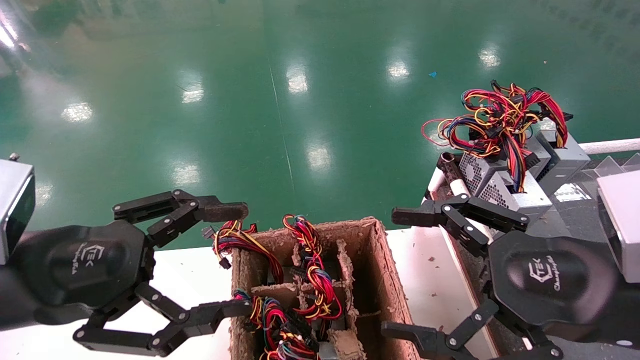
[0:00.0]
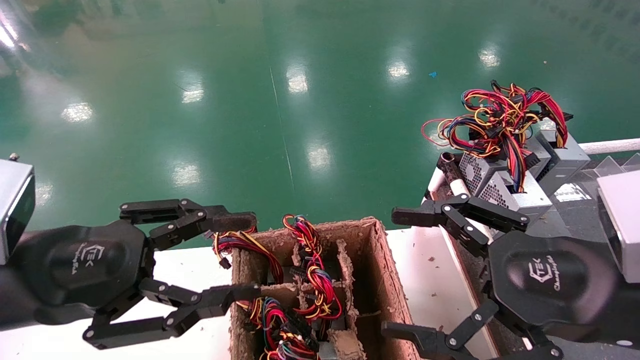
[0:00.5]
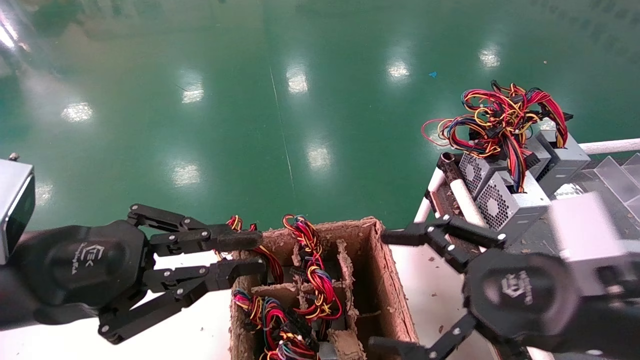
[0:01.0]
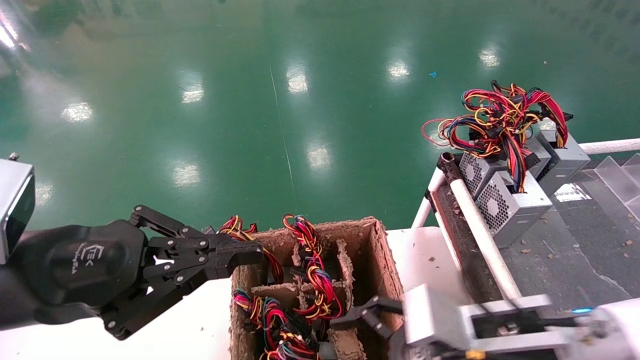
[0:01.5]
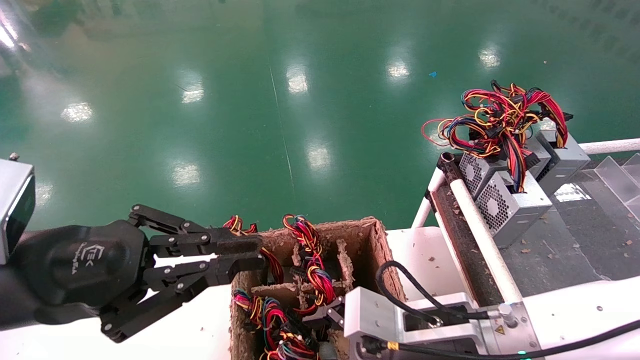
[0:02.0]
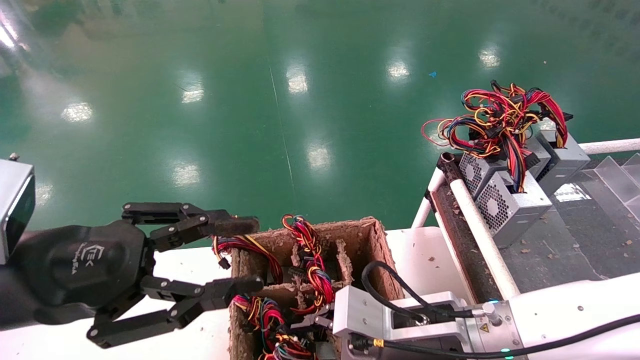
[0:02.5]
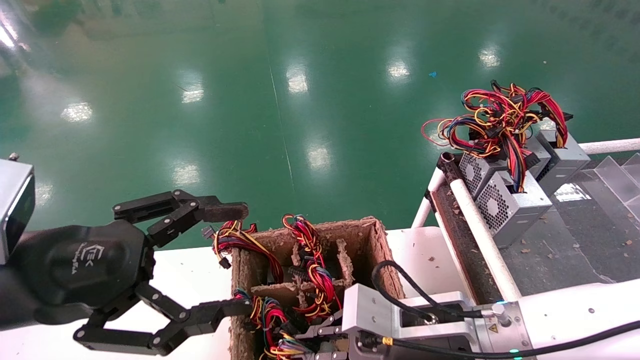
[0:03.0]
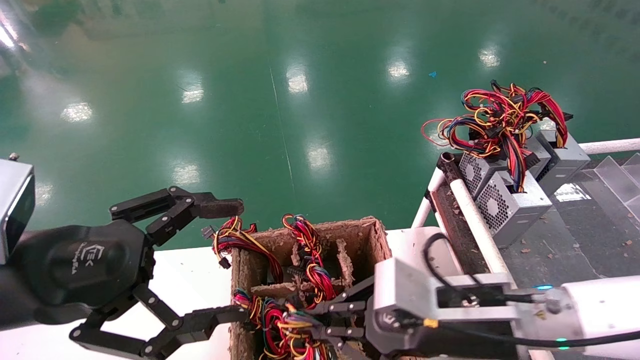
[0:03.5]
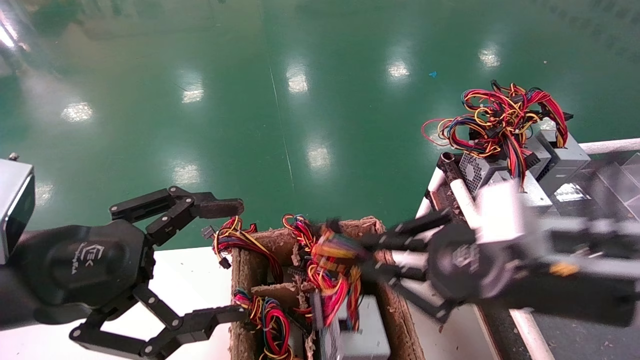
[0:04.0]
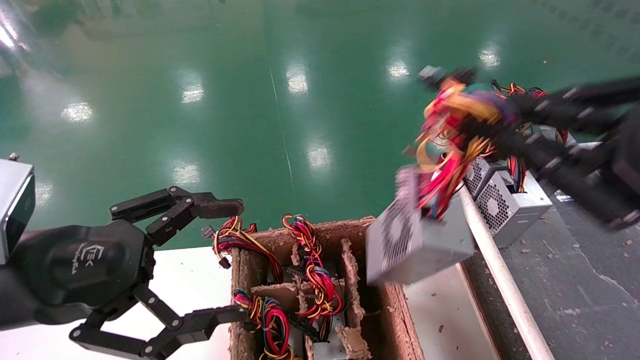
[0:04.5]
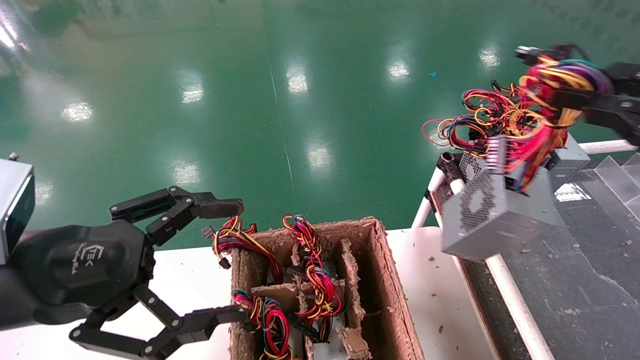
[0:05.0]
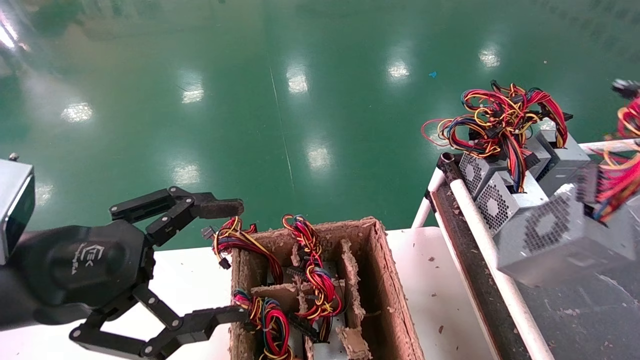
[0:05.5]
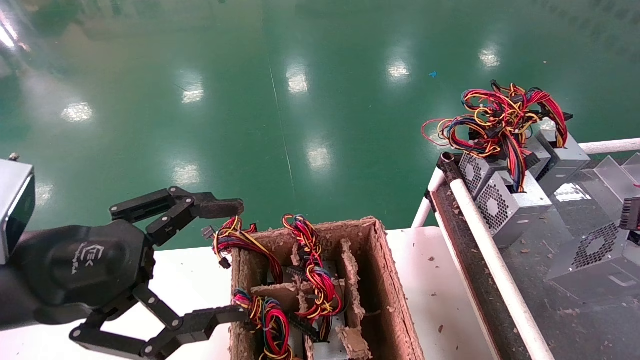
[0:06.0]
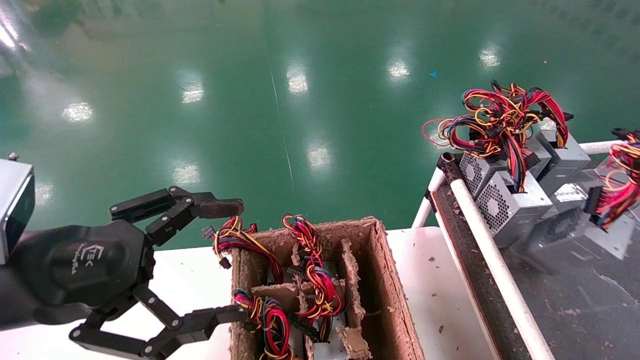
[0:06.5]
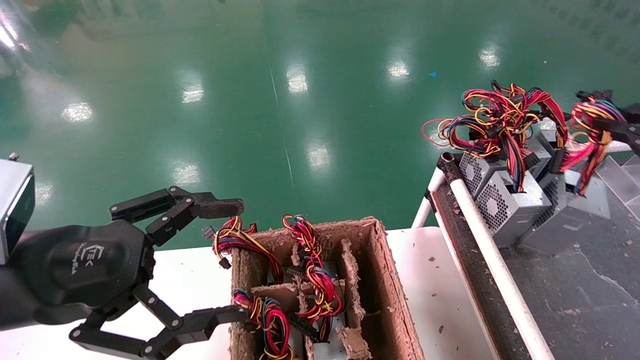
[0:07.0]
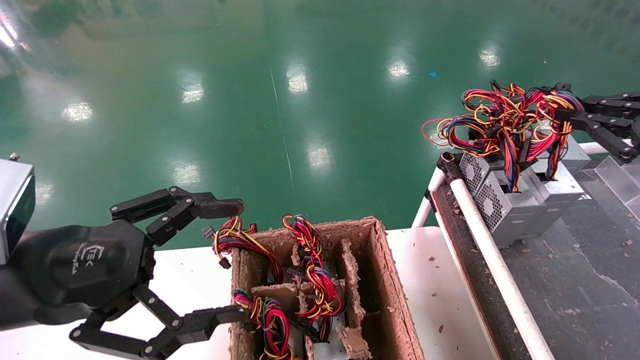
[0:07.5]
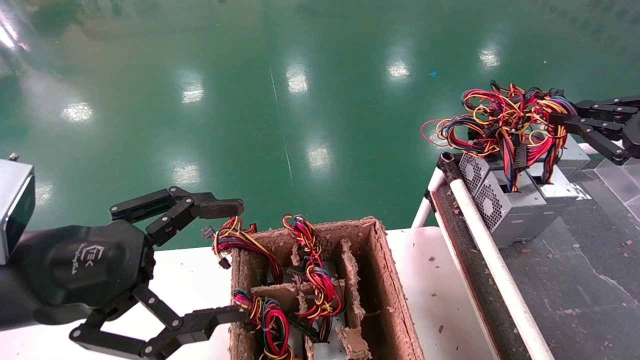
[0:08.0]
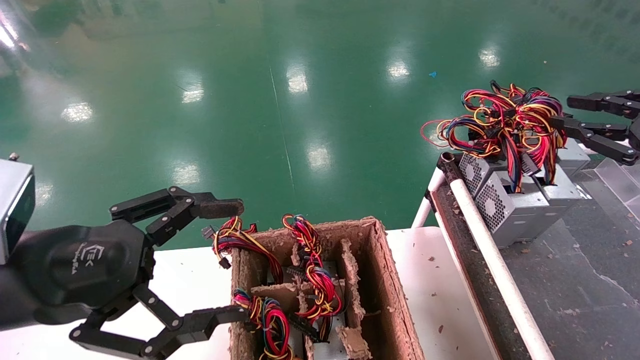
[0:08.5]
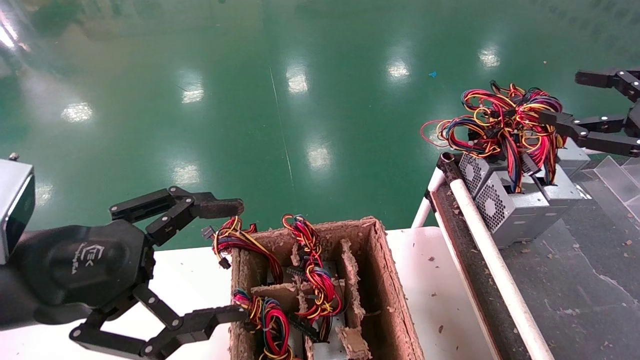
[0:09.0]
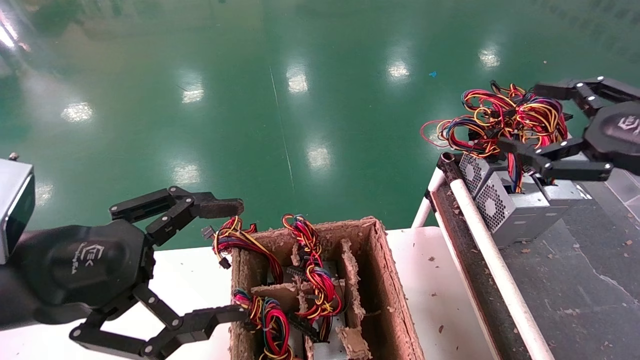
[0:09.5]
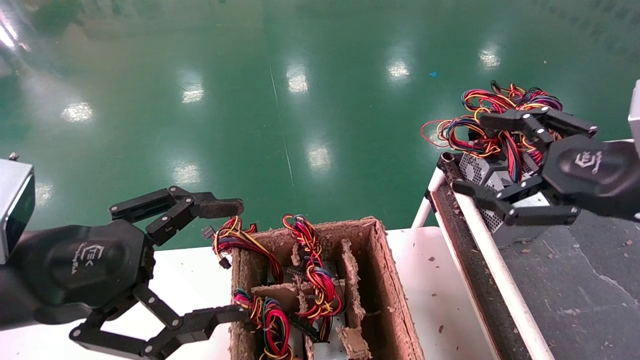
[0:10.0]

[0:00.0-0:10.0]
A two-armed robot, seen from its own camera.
Step, 0:01.5 to 0:05.0: Grab and lift the power supply from the large box.
Step, 0:05.5 to 0:09.0: Place the power supply on the operating table.
0:00.0 to 0:02.0: The right gripper heads to the left, downward and forward, covering roughly 20 cm; the left gripper closes.
0:02.0 to 0:04.0: The left gripper opens its fingers. Meanwhile the right gripper is displaced upward and to the right by roughly 15 cm, and closes up.
0:04.0 to 0:06.0: The right gripper goes some 25 cm to the right.
0:06.0 to 0:08.0: The right gripper heads forward, covering about 15 cm.
0:08.0 to 0:10.0: The right gripper shifts about 10 cm to the left, and opens its fingers.

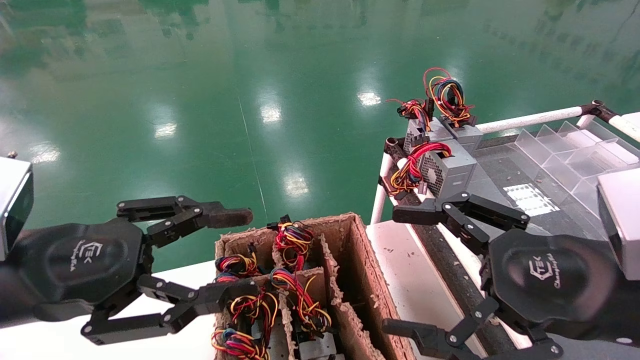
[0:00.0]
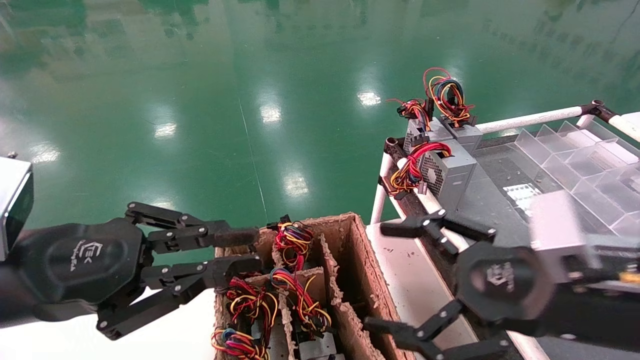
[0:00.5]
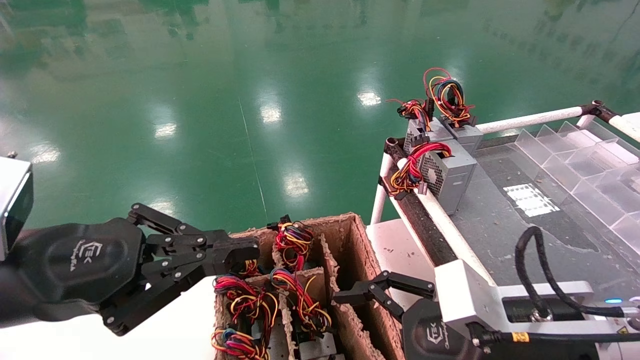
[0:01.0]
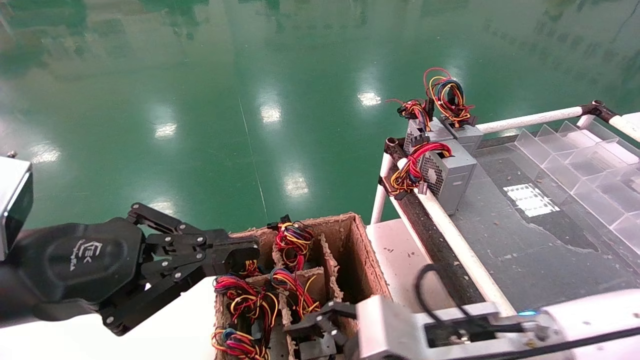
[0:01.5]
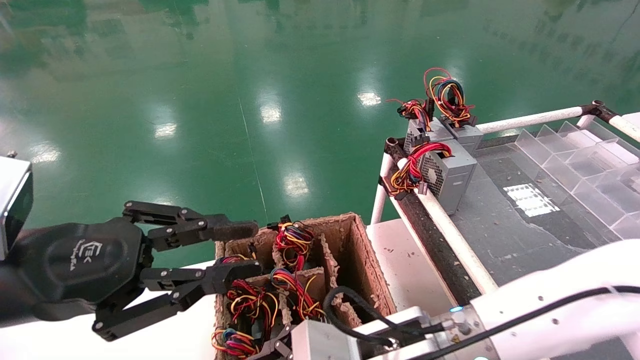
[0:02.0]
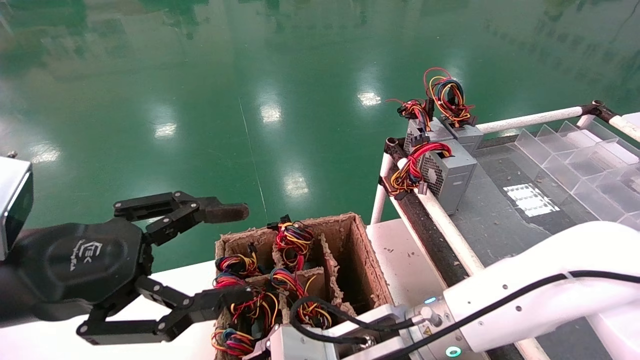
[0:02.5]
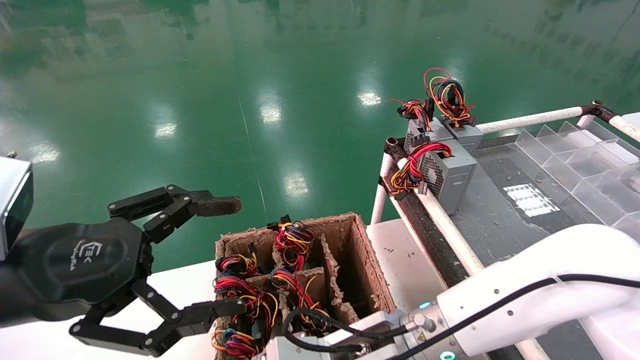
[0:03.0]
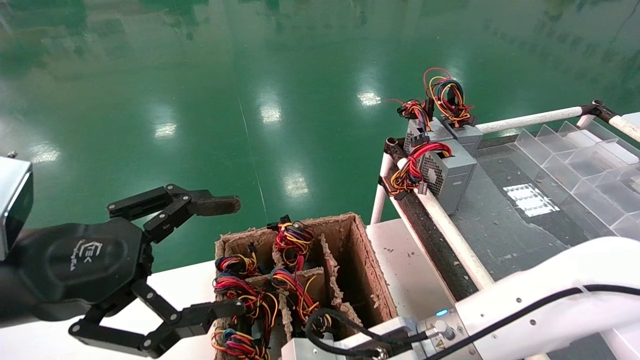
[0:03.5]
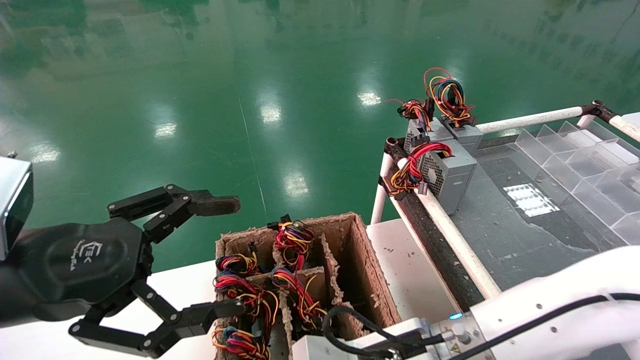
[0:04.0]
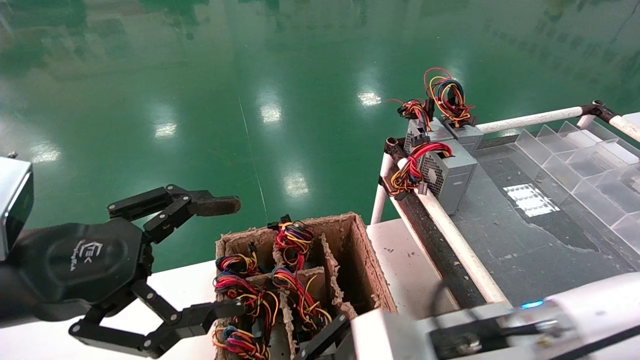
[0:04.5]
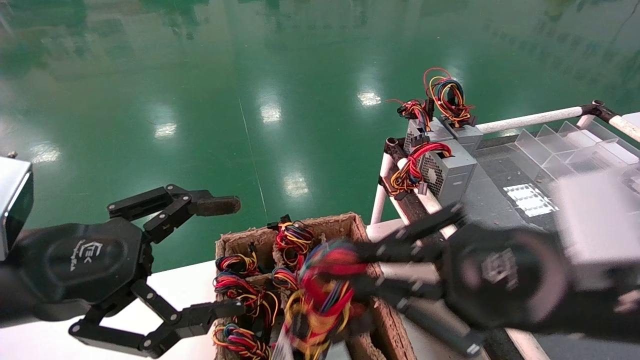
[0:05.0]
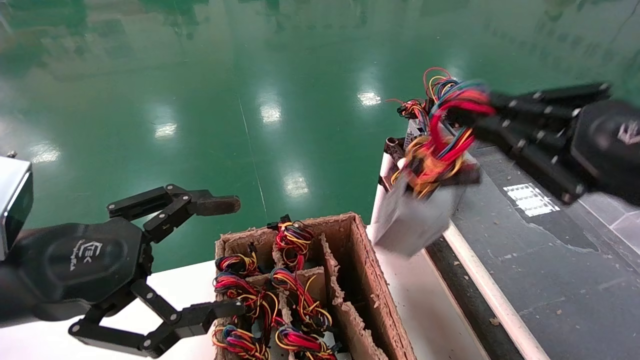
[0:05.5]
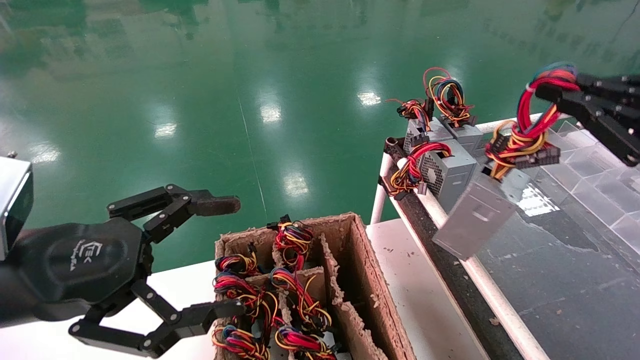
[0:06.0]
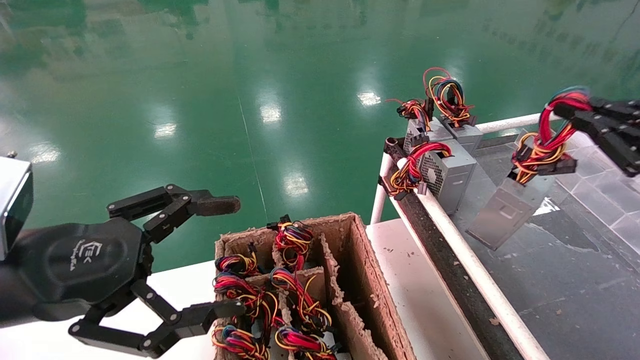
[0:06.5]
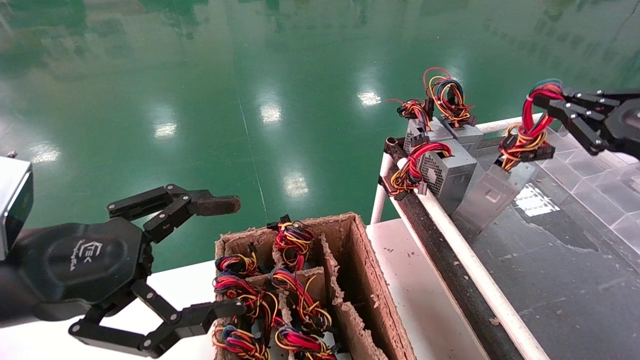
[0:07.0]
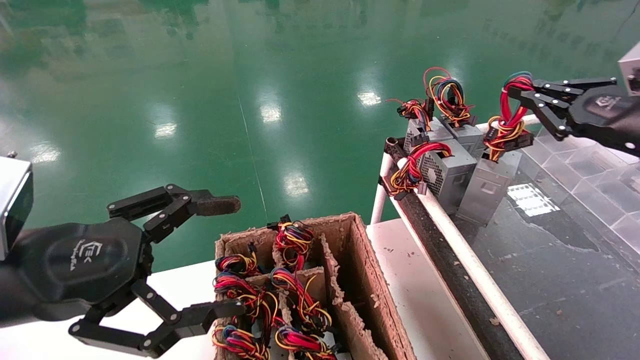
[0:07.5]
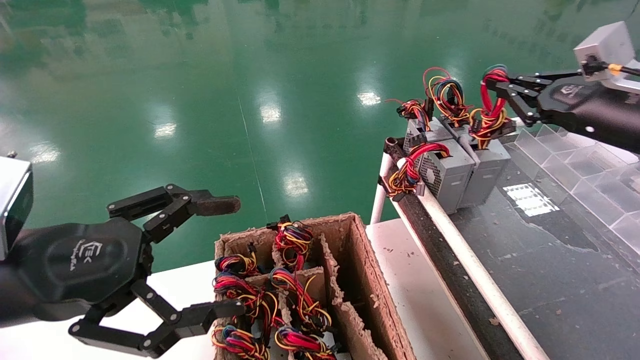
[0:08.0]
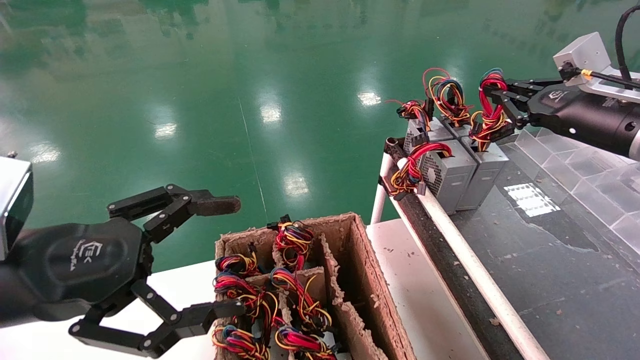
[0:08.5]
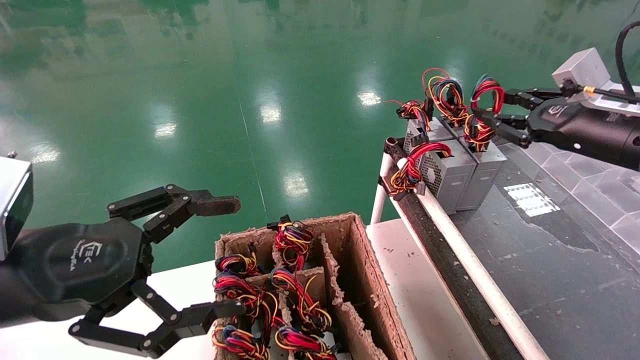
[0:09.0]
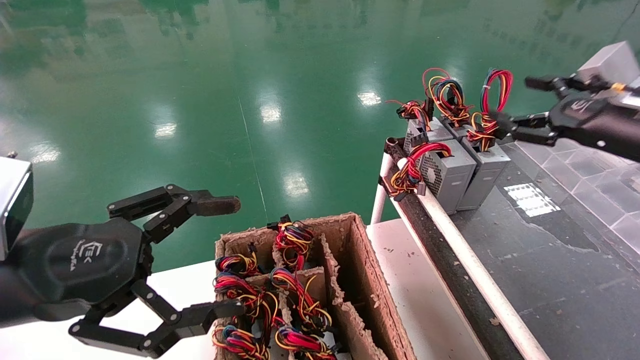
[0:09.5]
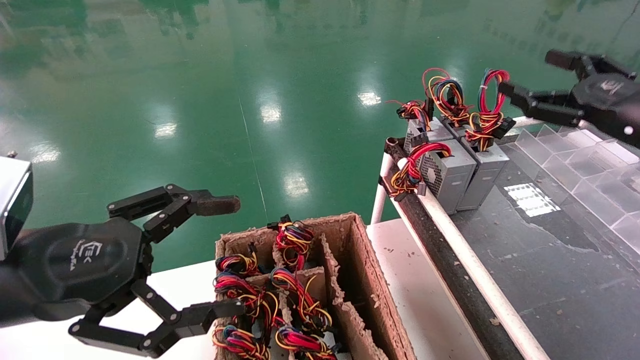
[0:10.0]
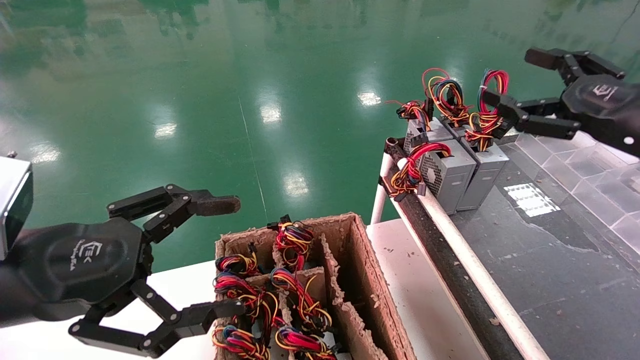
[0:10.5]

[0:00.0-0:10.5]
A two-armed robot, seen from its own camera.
Step, 0:01.0 to 0:04.0: Grab and lift the power supply from the large box.
Step, 0:04.5 to 0:08.5: Place the power supply on the operating table.
0:00.0 to 0:02.0: The right gripper heads to the left and downward, covering approximately 20 cm. Meanwhile the left gripper closes up.
0:02.0 to 0:04.0: The left gripper opens its fingers; the right gripper closes.
0:04.0 to 0:06.5: The right gripper heads to the right and upward, covering some 35 cm.
0:06.5 to 0:08.5: The right gripper goes some 15 cm forward.
0:08.5 to 0:10.5: The right gripper moves backward, some 10 cm, and opens up.
